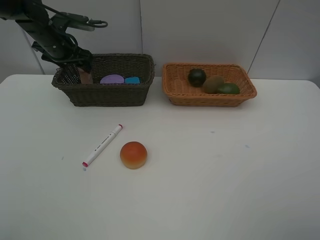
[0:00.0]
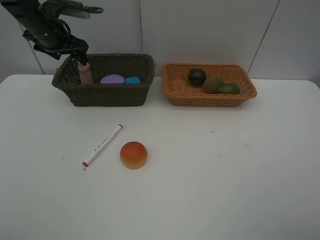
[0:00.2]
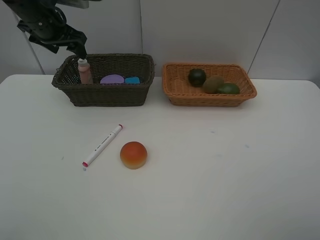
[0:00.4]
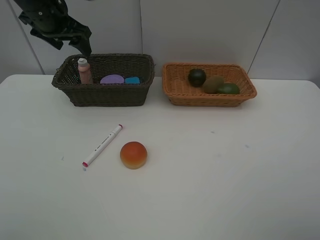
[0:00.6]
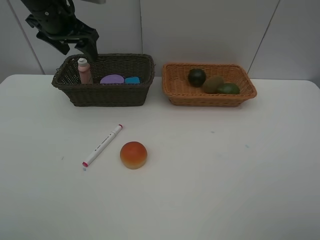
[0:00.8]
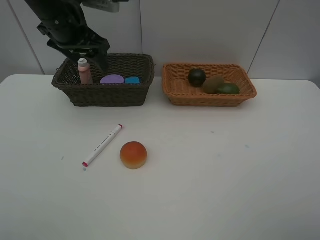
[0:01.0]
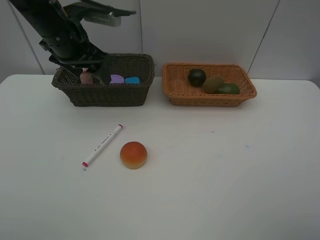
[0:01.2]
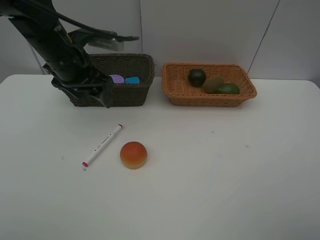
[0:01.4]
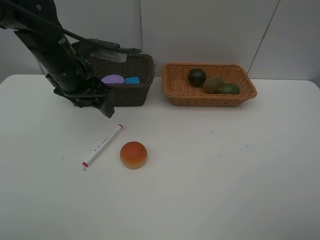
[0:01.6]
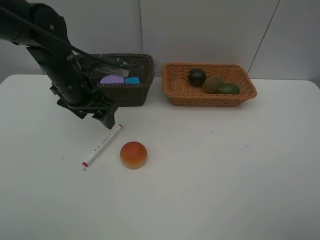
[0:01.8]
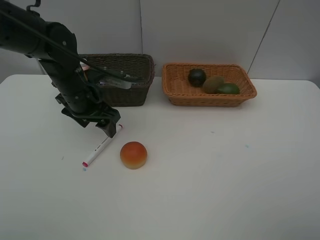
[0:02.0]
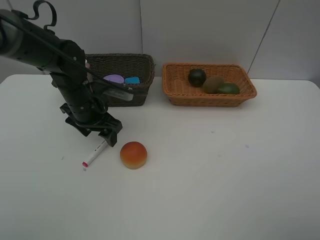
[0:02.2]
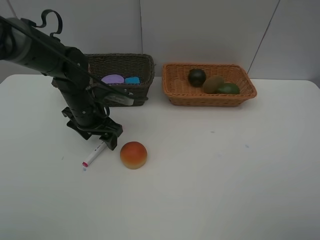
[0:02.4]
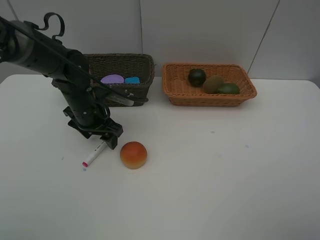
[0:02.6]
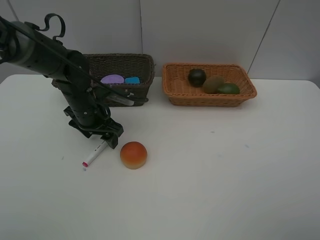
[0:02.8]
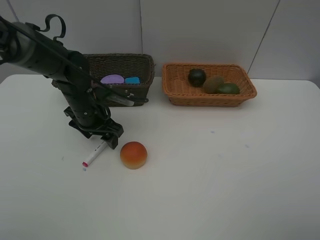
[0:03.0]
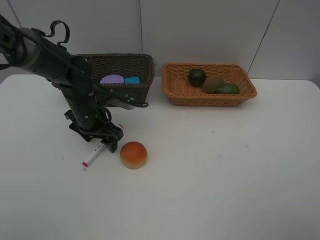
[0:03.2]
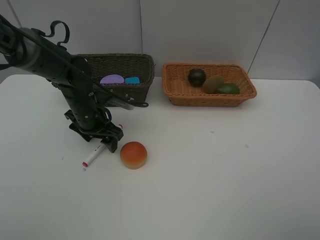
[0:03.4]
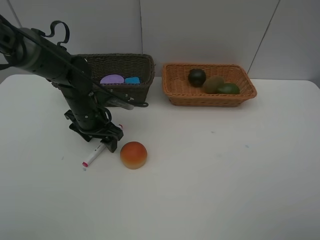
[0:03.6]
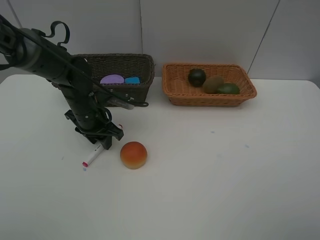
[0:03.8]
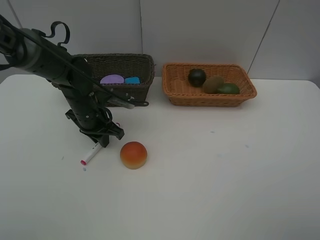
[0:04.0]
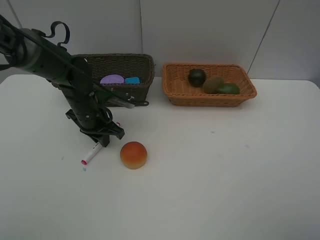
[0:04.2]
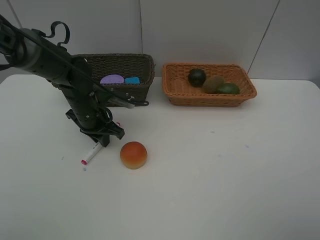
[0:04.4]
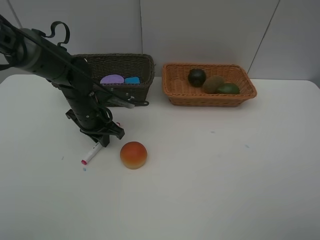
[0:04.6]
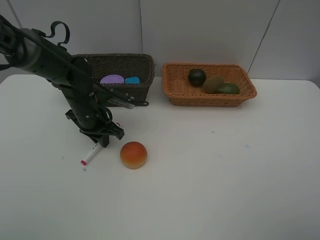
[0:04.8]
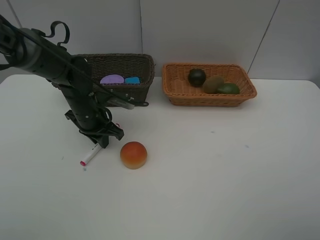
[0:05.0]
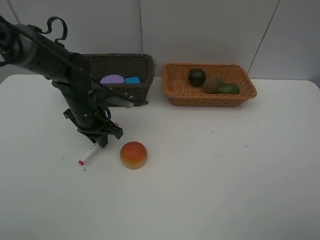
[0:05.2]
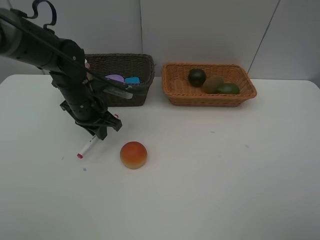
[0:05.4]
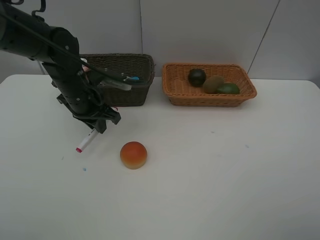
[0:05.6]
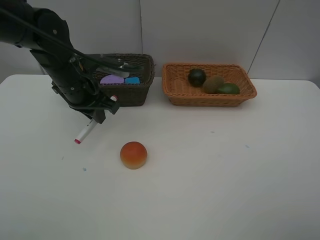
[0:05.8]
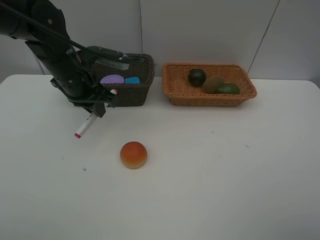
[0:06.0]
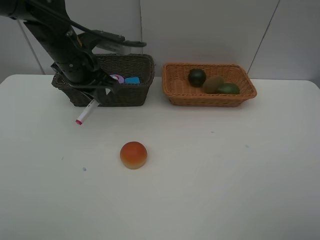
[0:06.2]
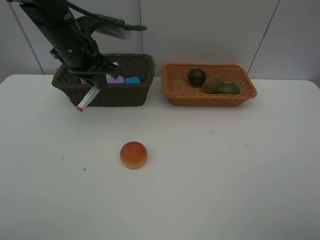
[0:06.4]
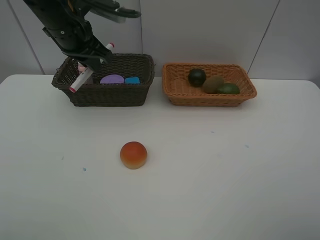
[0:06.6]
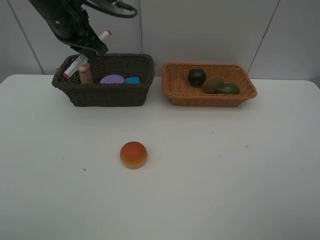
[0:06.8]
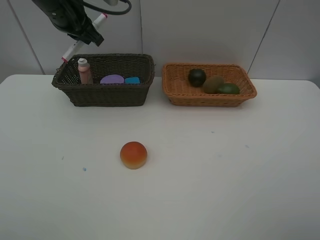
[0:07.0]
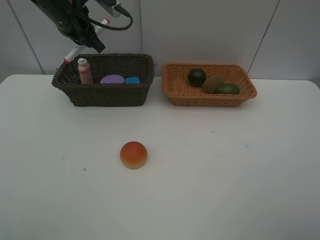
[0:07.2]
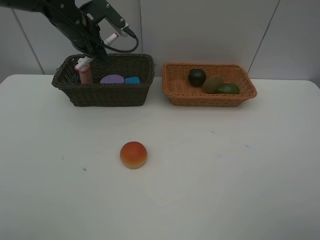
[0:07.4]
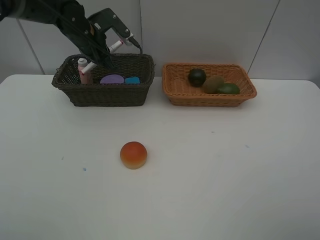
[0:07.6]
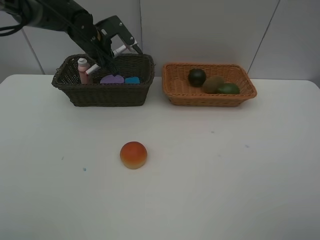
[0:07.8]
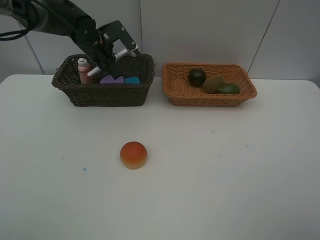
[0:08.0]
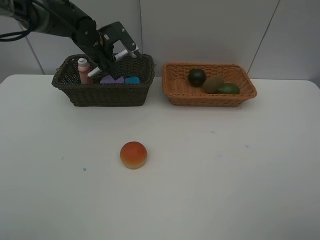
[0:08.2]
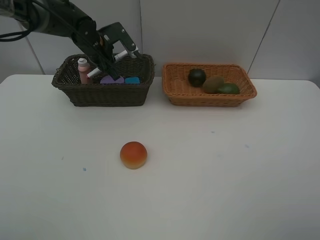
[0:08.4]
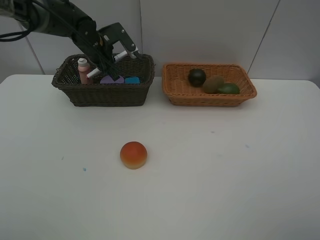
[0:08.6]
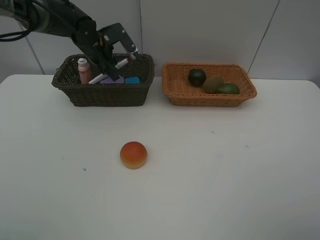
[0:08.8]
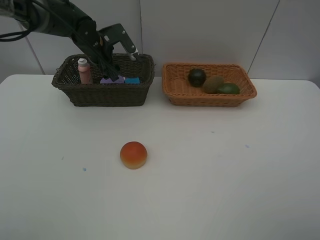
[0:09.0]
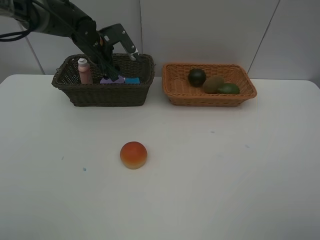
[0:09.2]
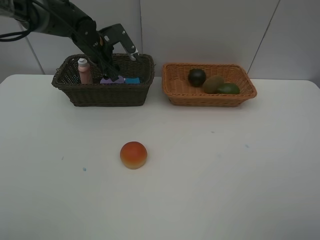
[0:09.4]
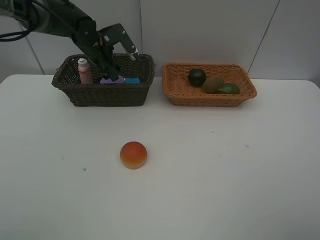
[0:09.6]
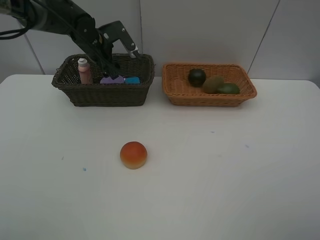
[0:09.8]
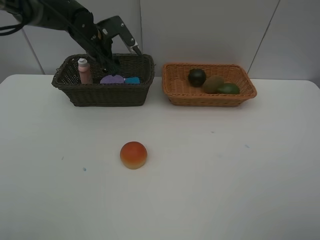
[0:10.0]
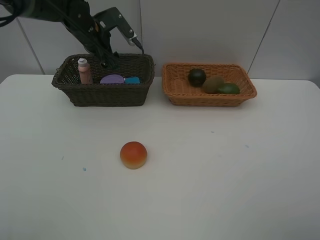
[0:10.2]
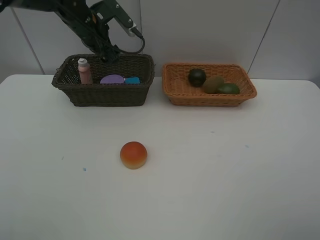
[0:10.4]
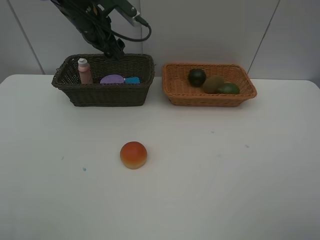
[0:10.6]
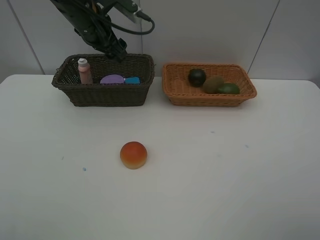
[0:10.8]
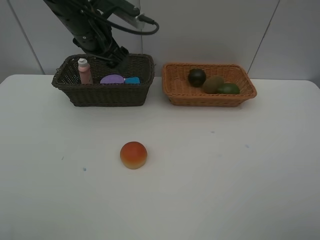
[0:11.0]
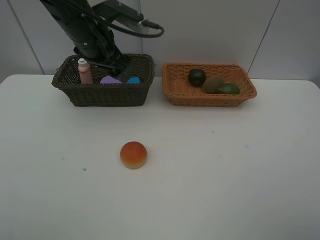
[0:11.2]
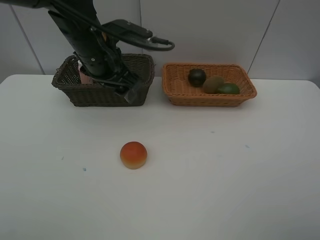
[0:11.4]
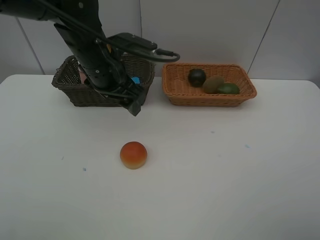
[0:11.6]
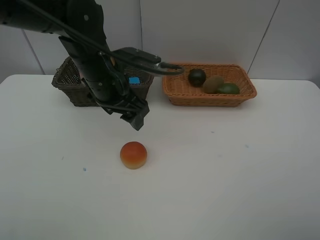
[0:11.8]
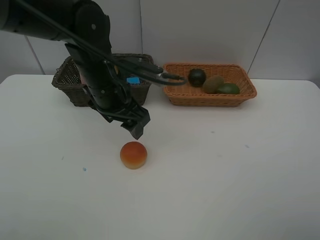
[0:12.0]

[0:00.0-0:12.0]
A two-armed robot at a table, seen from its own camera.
Task of the whole recording: Place multiple objects separately in different baskets.
Step, 0:00.4 to 0:05.4: Pick up the red marker with left gripper.
Step, 0:05.6 to 0:09.8: Place the red marker in the dark basket with left gripper.
0:00.0 to 0:01.6: The left gripper shifts about 20 cm backward and to the right.
0:01.6 to 0:03.0: The left gripper goes some 10 cm downward.
0:03.0 to 0:04.4: The left gripper closes.
0:04.4 to 0:06.0: The left gripper travels upward by approximately 10 cm.
0:06.0 to 0:07.6: The left gripper shifts about 10 cm forward.
0:07.6 to 0:09.0: The left gripper opens its fingers.
0:09.0 to 0:10.4: The left gripper goes roughly 5 cm upward.
0:10.4 to 0:12.0: The left gripper travels backward and to the right by approximately 20 cm.

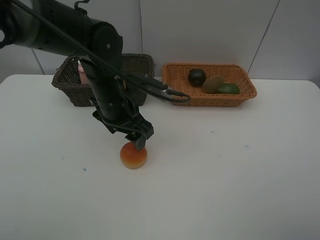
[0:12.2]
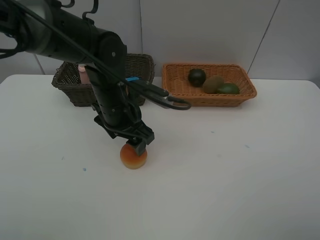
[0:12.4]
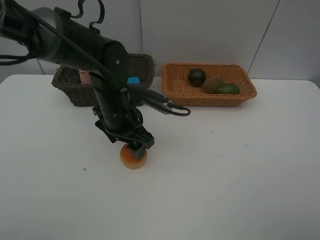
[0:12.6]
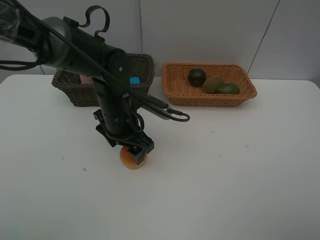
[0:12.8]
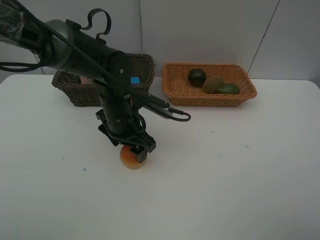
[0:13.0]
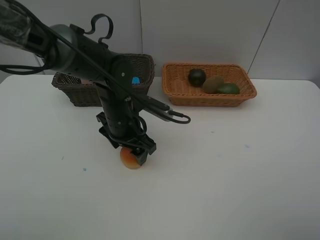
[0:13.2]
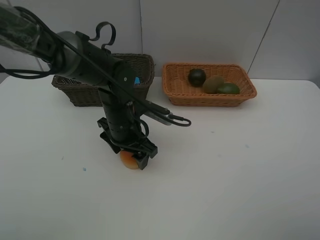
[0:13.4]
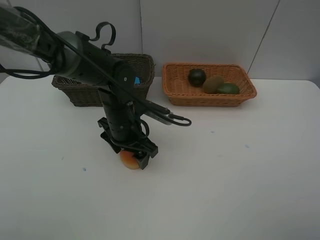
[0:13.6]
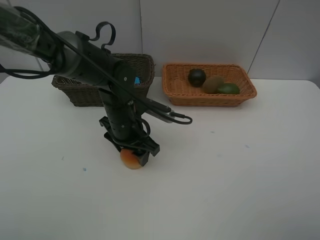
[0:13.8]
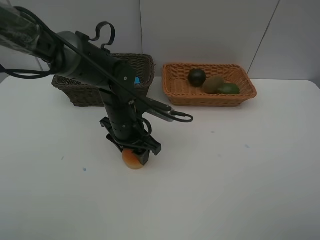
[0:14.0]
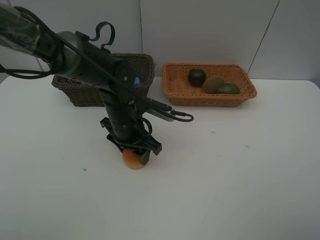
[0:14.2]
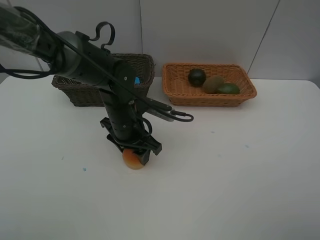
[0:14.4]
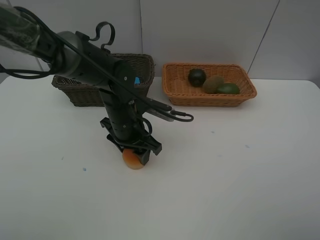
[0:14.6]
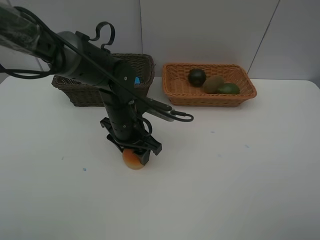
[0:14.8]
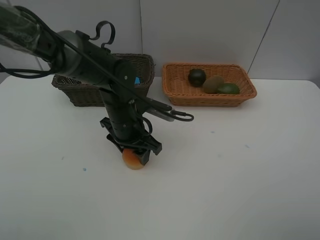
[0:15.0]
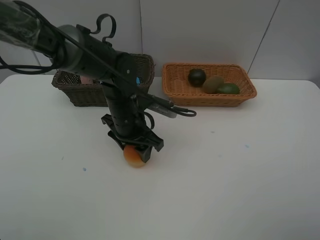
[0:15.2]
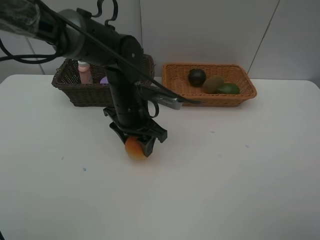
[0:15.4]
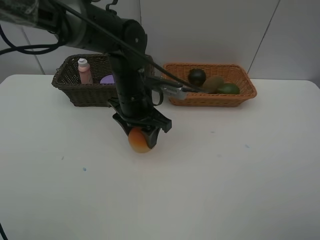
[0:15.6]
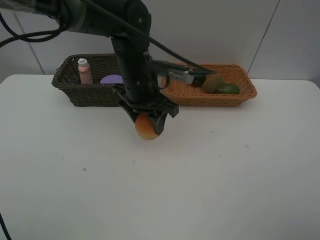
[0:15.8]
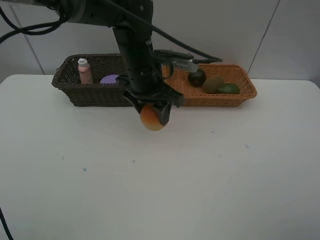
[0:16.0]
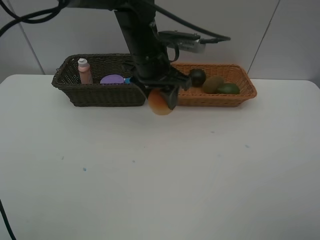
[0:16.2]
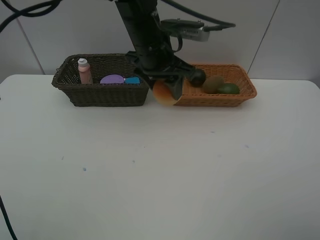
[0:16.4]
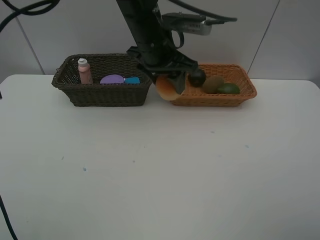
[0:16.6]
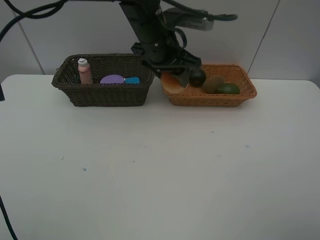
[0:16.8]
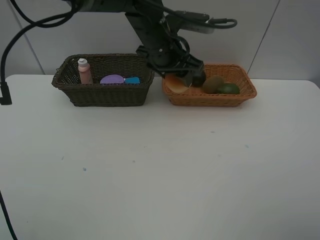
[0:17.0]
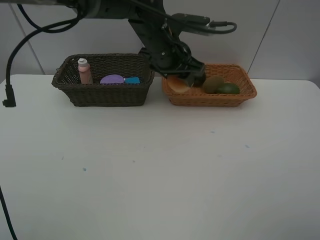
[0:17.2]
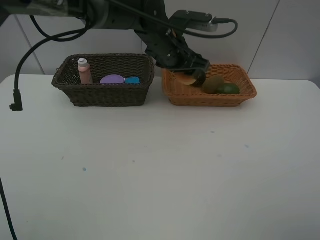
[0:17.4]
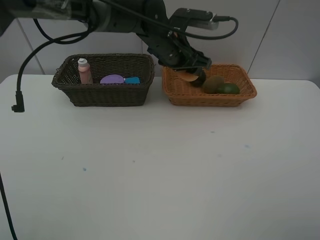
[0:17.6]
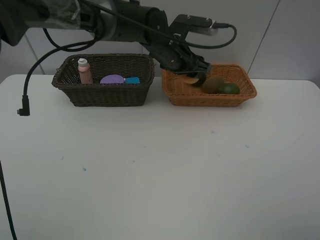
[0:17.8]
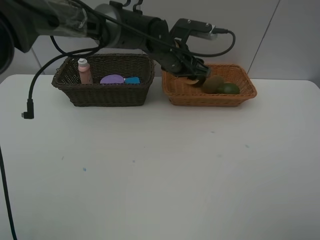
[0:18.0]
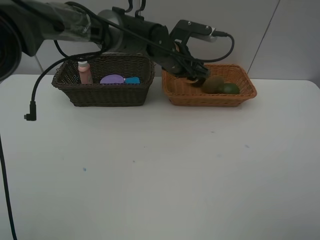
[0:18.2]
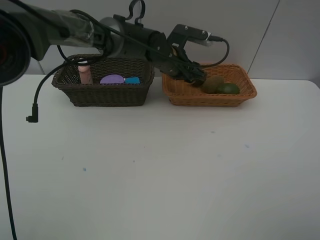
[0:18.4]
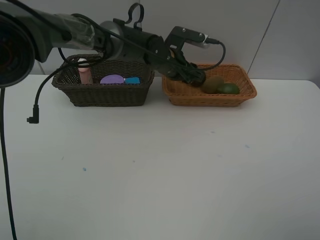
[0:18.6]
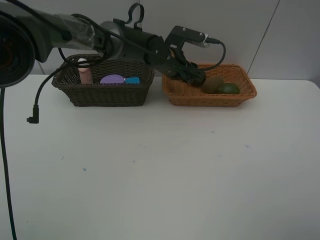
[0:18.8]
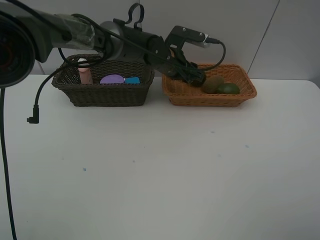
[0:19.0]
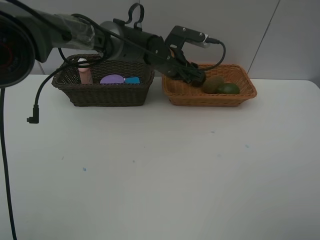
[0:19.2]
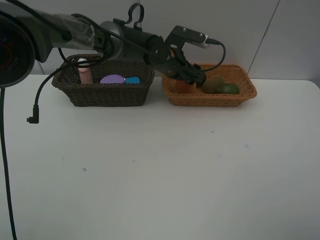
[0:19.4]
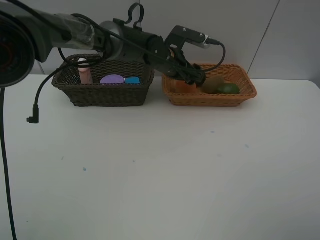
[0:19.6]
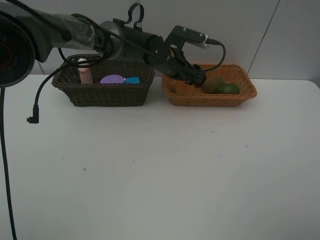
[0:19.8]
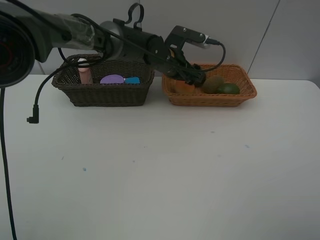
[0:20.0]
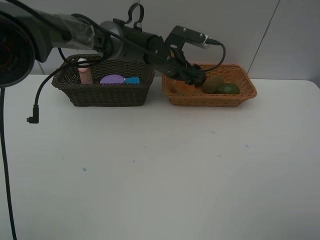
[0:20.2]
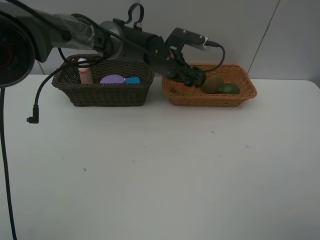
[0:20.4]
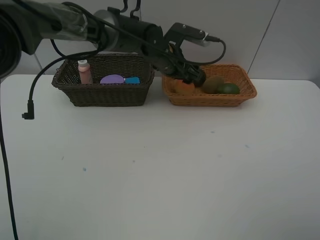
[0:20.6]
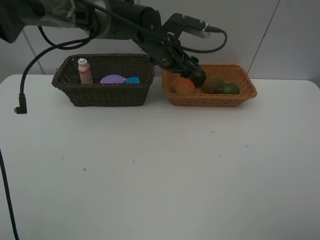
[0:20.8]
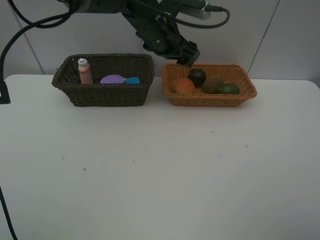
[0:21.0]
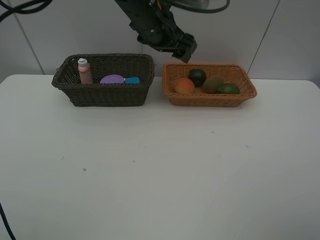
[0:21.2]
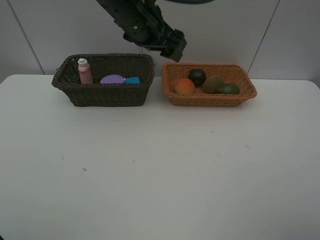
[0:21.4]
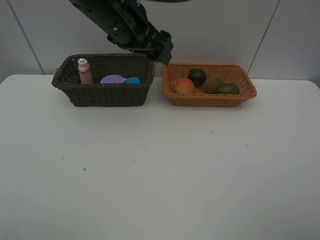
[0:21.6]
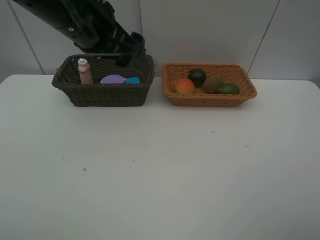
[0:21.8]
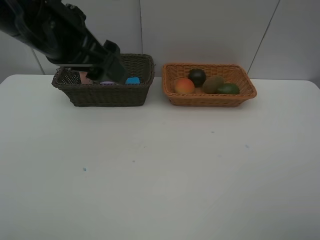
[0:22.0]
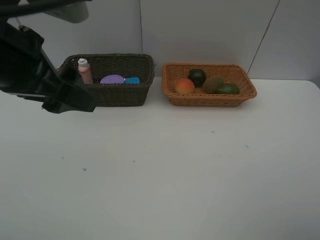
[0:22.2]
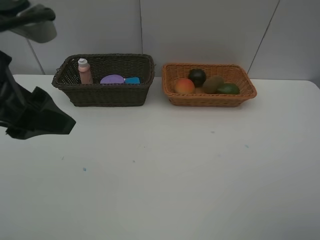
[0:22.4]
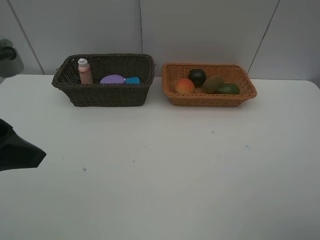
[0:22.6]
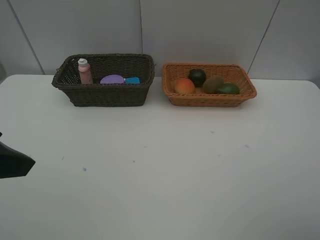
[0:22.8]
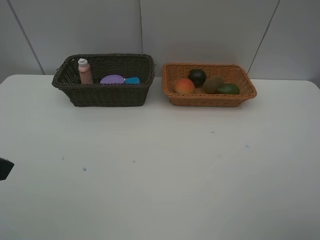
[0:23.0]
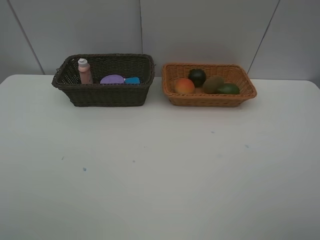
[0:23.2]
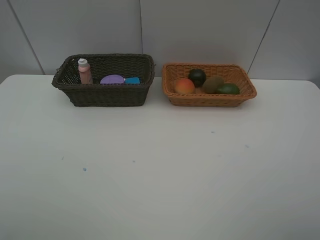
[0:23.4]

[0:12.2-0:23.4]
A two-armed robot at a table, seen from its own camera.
Task of the whole recording: Place multiple objects separately in different baskets.
Step, 0:12.2 to 0:15.4: Pick up egg yolk pastry with left gripper.
Step, 0:15.6 to 0:20.8: Place the egg yolk pastry in the light basket with left gripper.
0:12.2 to 0:13.8: The left gripper shifts some 5 cm downward.
0:13.8 to 0:15.4: The grippers stay close to where they were, moving slightly.
0:15.4 to 0:17.0: The left gripper moves upward, forward and to the right, some 10 cm.
0:17.0 to 0:18.6: The left gripper goes some 10 cm downward and forward.
0:18.6 to 0:20.2: Neither gripper changes place.
0:20.2 to 0:21.8: The left gripper shifts roughly 25 cm backward, upward and to the left.
0:21.8 to 0:23.4: The left gripper is displaced backward and to the left by about 30 cm.
